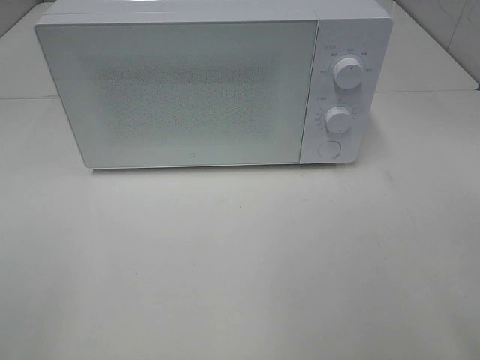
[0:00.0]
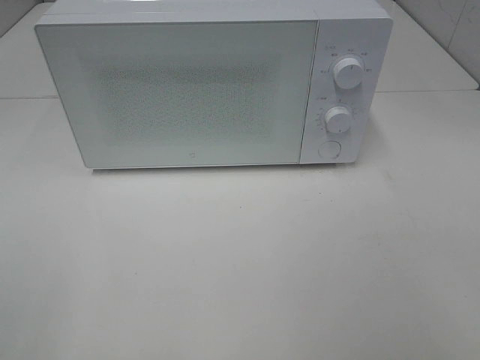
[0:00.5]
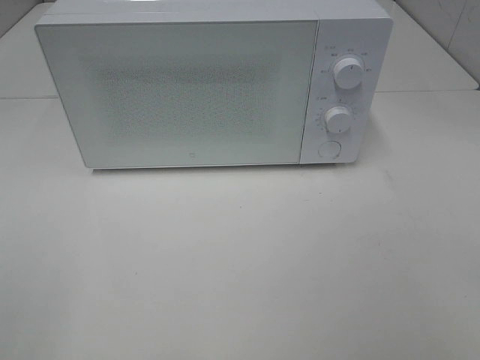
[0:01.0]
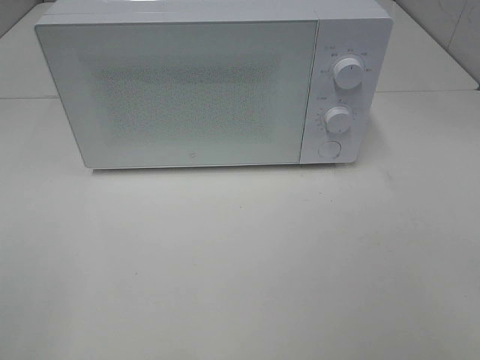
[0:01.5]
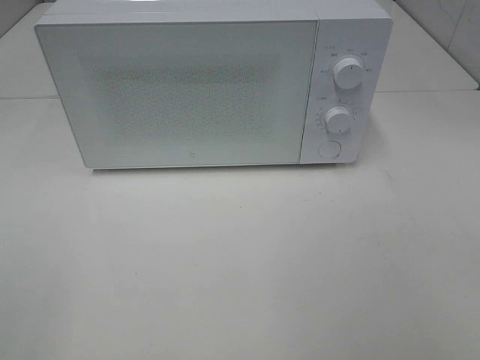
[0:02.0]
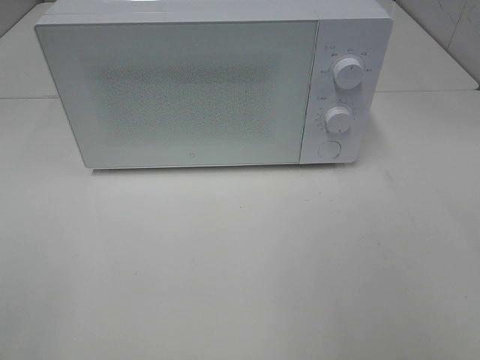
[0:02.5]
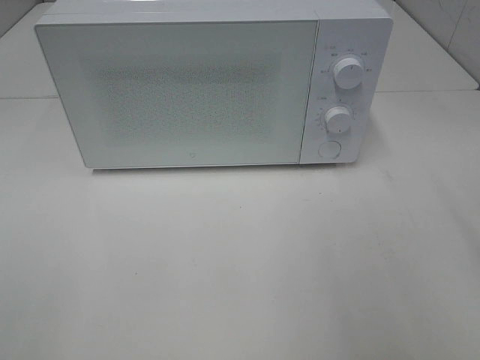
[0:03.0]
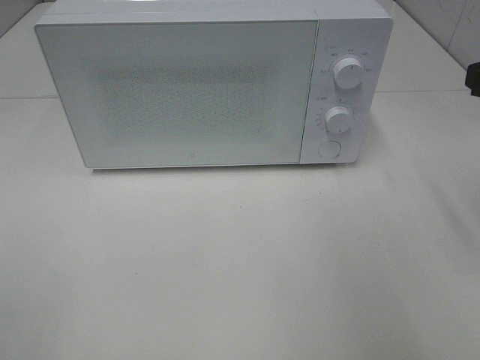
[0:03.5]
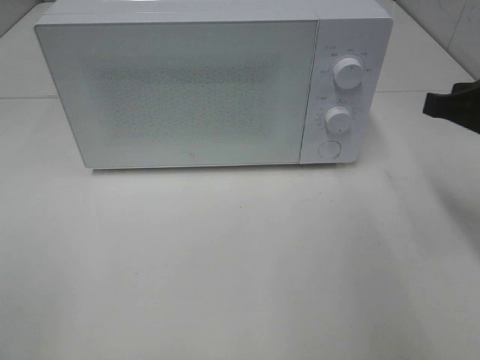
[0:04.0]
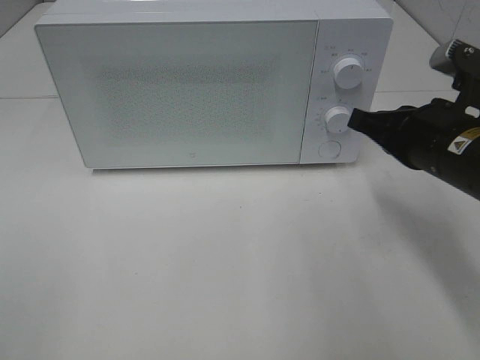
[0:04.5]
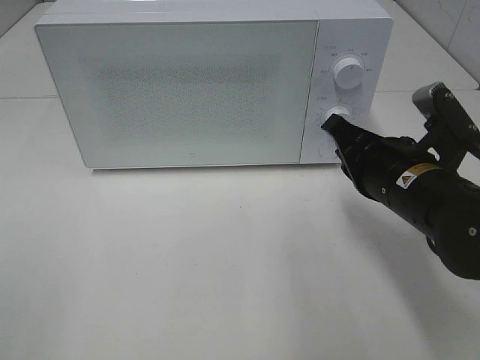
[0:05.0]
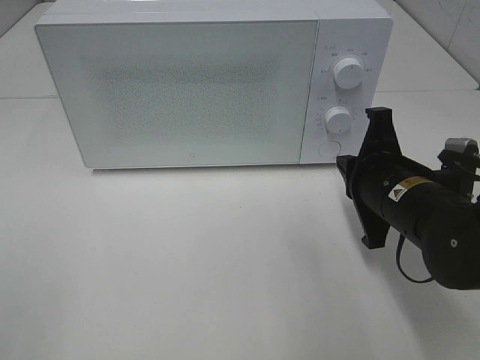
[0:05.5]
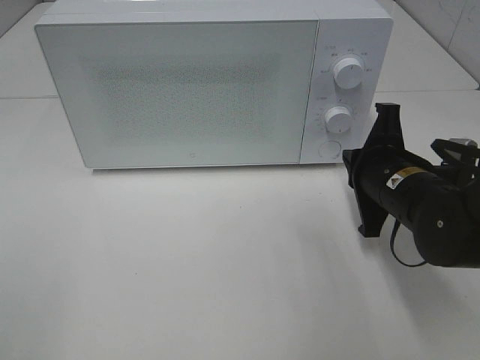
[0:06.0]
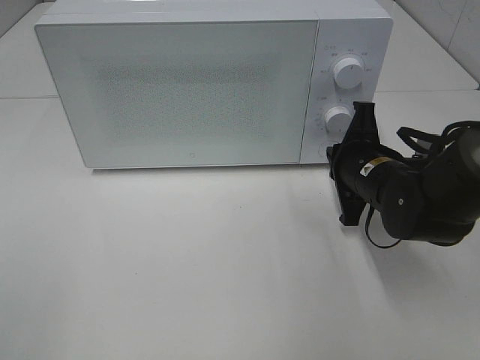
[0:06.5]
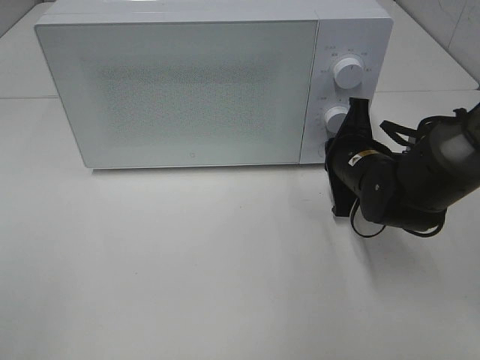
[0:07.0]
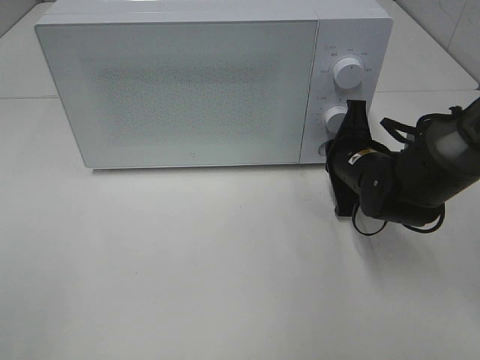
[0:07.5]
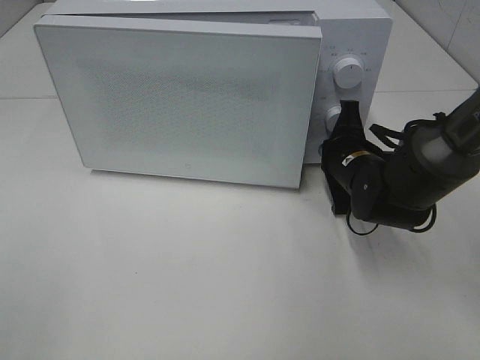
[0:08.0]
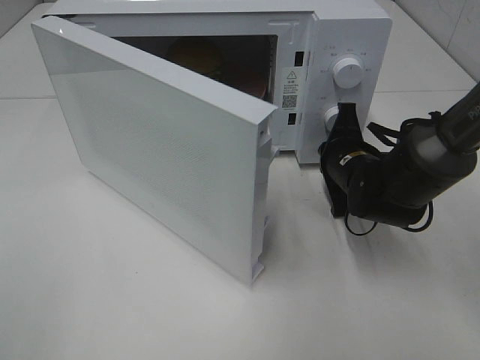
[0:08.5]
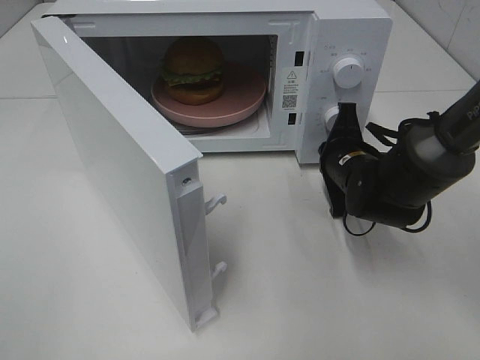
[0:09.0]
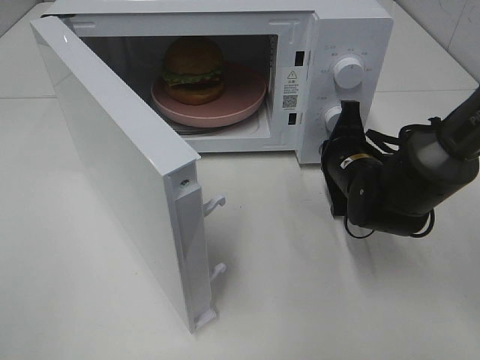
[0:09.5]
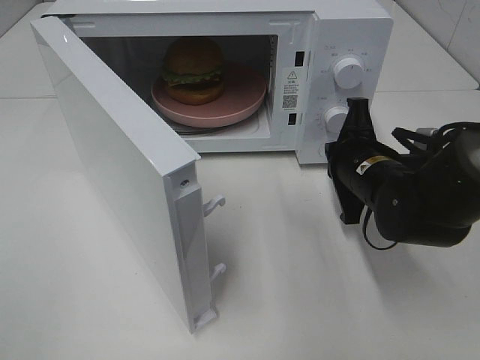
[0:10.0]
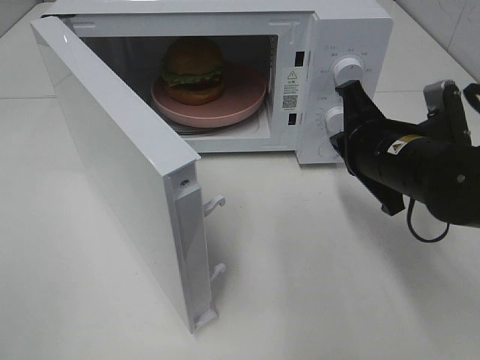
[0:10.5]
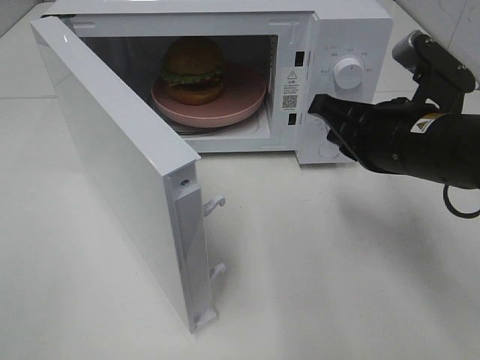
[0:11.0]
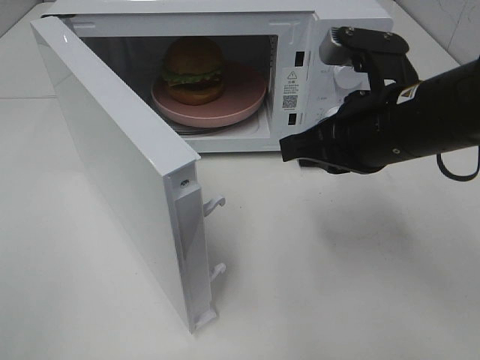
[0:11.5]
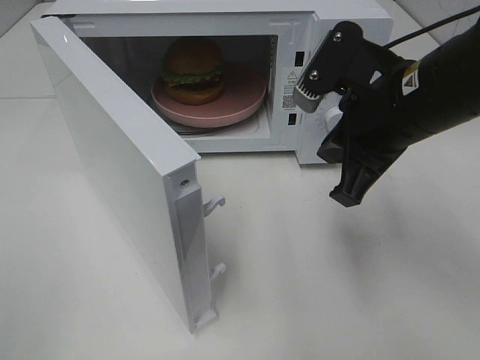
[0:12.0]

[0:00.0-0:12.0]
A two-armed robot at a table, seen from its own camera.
Task of the whole recording: Heat the burger.
Step, 0:00.0 to 0:09.5: Right hand: press the switch.
0:02.0 to 0:04.0: The right gripper heads forward, covering approximately 25 cm, and closes its fingers.
0:04.0 to 0:06.0: The right gripper shifts roughly 15 cm downward and to the left.
0:06.0 to 0:08.0: The right gripper is displaced forward by some 10 cm.
0:08.0 to 0:10.0: The right gripper moves backward, approximately 5 cm.
0:10.0 to 0:12.0: The right gripper shifts about 15 cm upward.

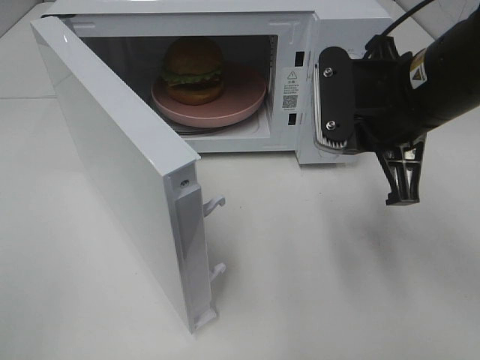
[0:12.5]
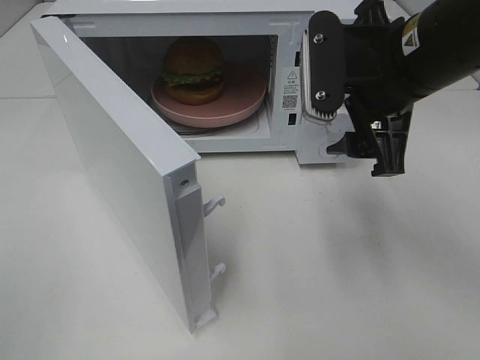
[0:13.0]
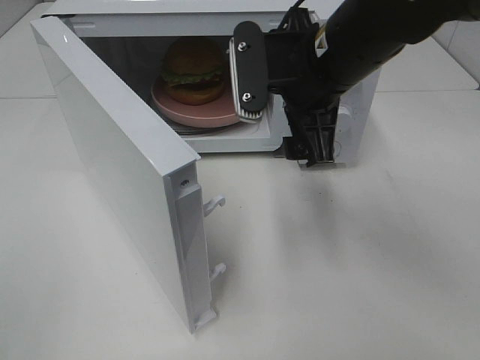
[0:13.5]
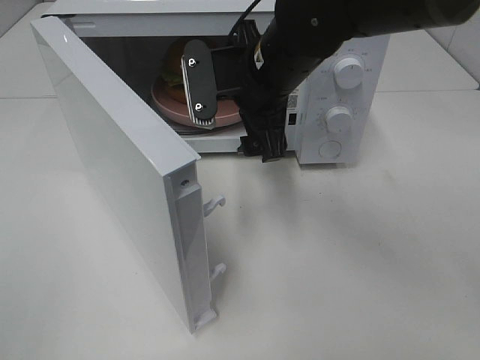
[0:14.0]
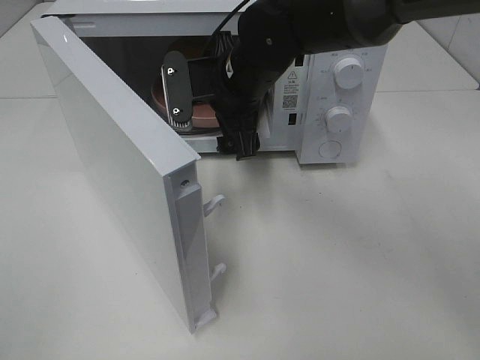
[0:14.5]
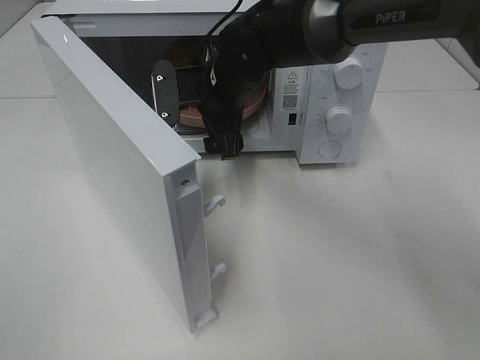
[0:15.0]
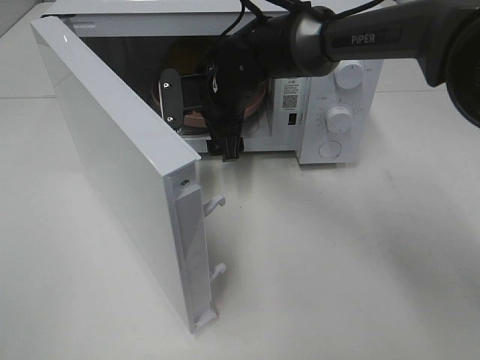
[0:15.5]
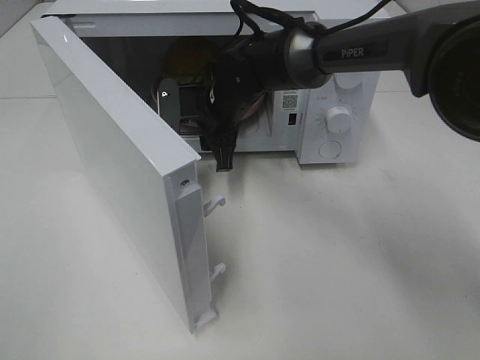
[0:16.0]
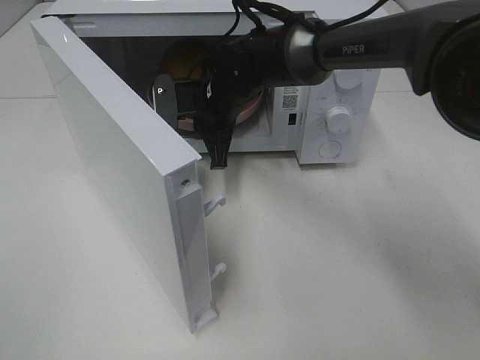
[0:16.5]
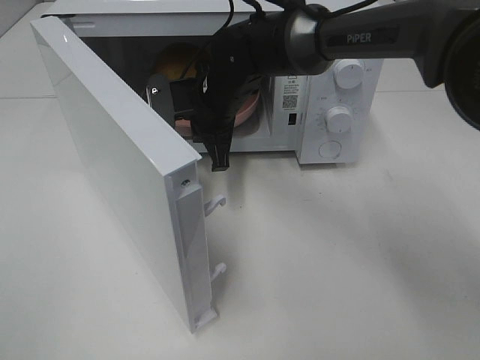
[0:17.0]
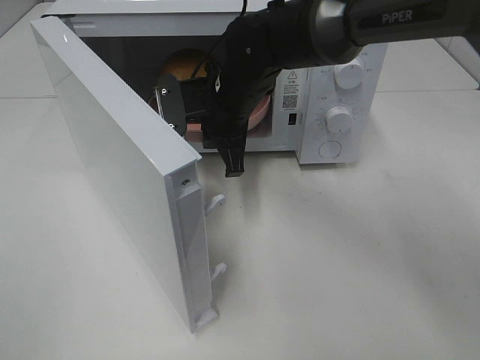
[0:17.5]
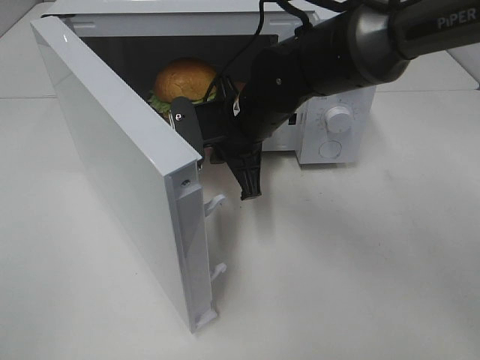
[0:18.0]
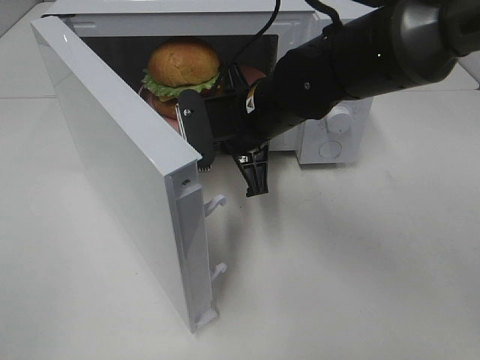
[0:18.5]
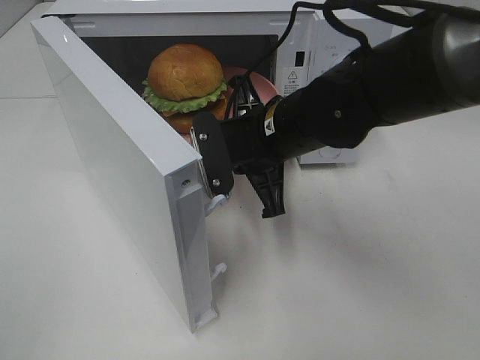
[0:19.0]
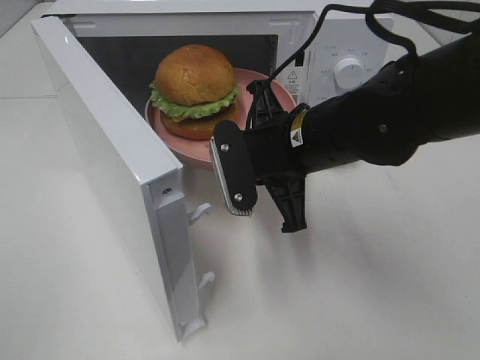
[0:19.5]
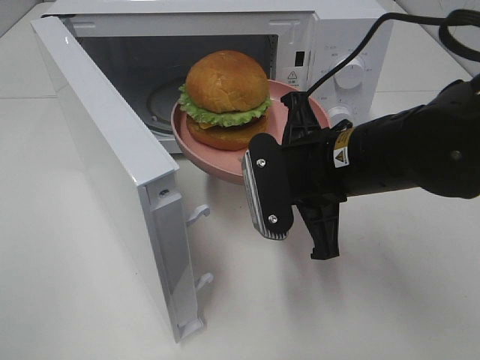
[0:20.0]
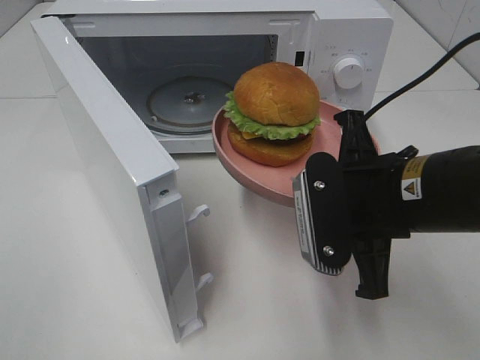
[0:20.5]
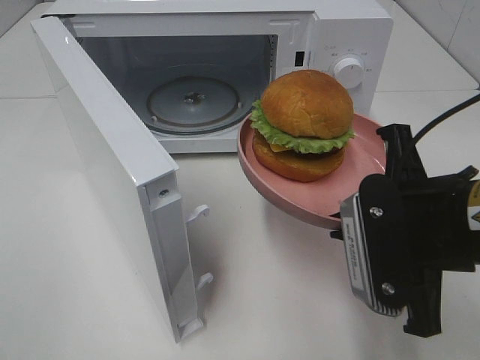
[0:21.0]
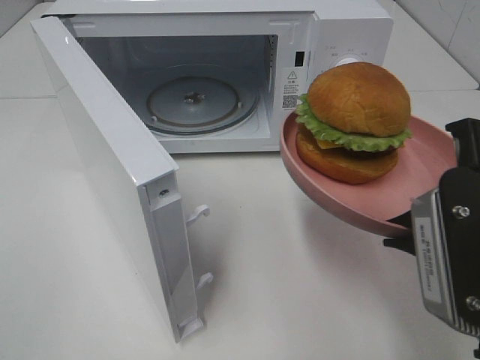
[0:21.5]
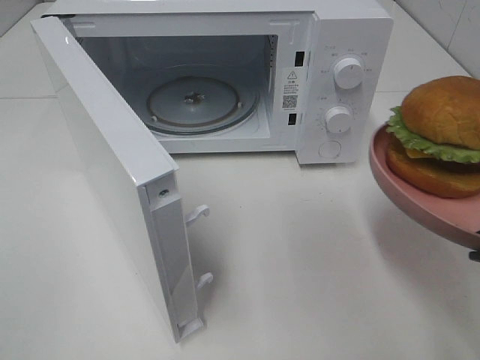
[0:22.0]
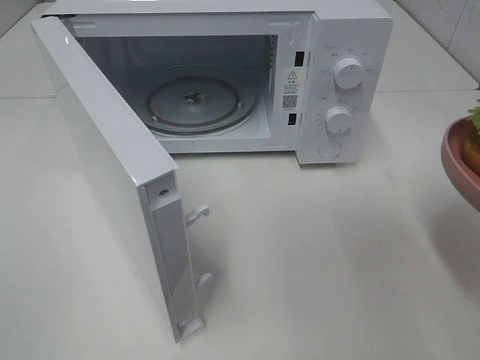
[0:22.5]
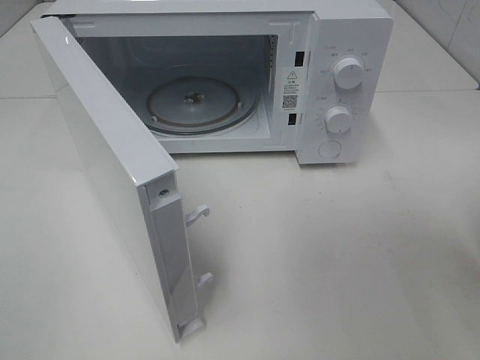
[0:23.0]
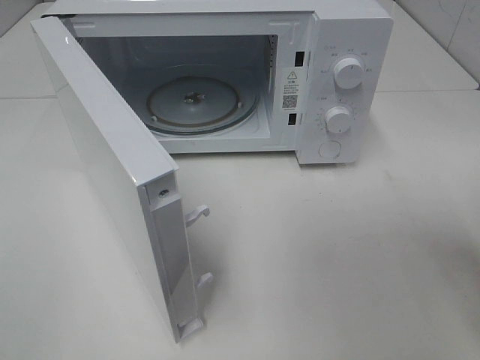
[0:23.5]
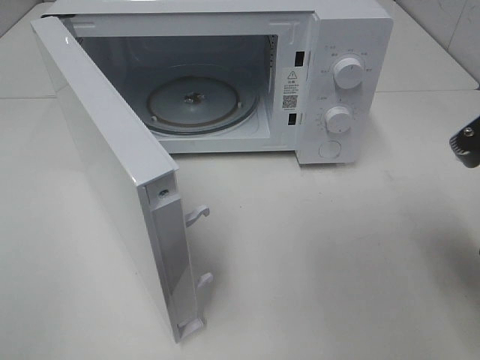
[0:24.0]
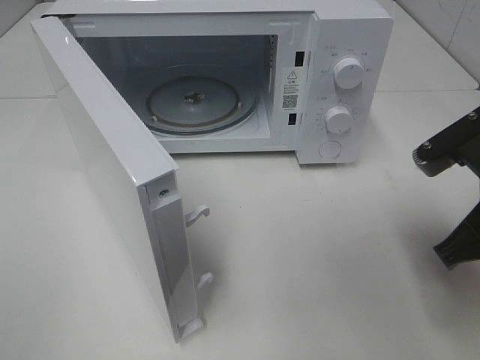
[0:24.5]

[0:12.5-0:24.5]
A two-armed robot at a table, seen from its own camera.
Task of the whole recording: Heat the burger.
Step, 0:12.5 to 0:16.0: Right hand: grab the plate with the hamburger.
0:12.5 to 0:14.5: The right gripper is displaced to the left and forward by approximately 20 cm, and opens its fingers.
0:14.5 to 0:16.5: The right gripper travels downward by approximately 5 cm, and closes its fingers.
0:16.5 to 0:18.5: The right gripper is displaced backward by some 10 cm.
0:18.5 to 0:20.5: The right gripper goes some 15 cm backward and to the right.
0:20.5 to 0:22.5: The right gripper moves to the right and backward, approximately 15 cm.
0:22.5 to 0:24.5: The right gripper moves forward, approximately 10 cm.

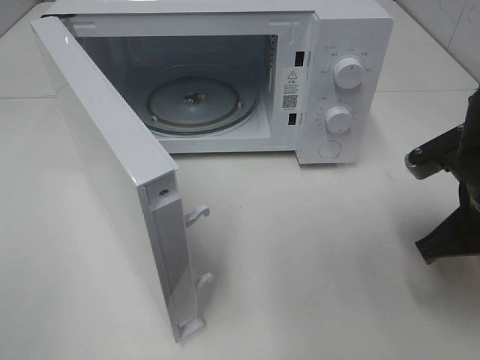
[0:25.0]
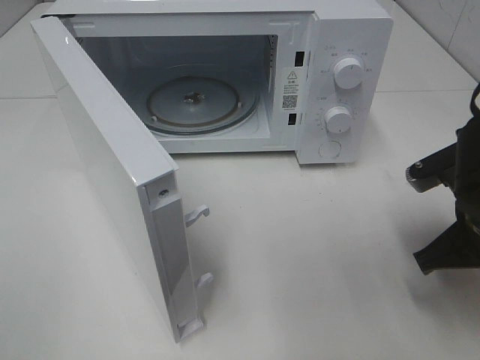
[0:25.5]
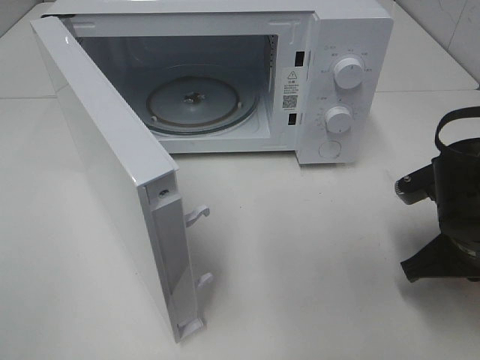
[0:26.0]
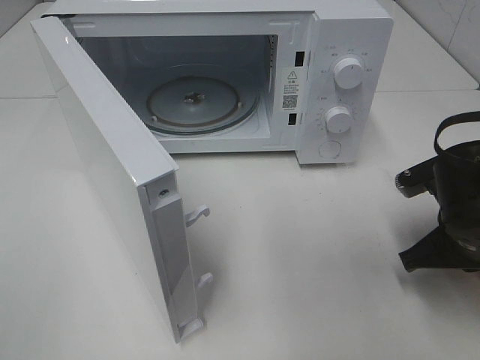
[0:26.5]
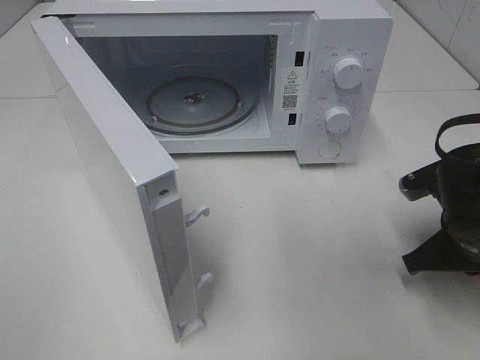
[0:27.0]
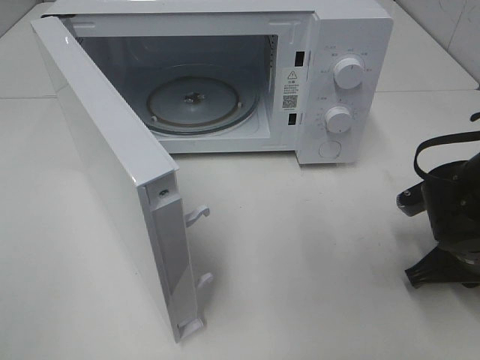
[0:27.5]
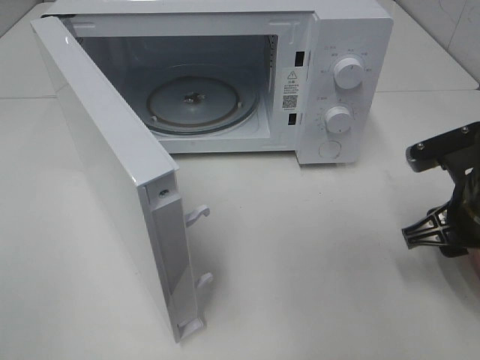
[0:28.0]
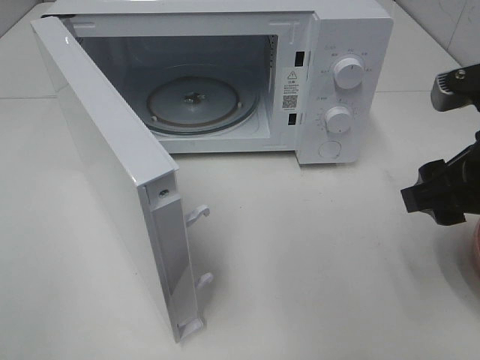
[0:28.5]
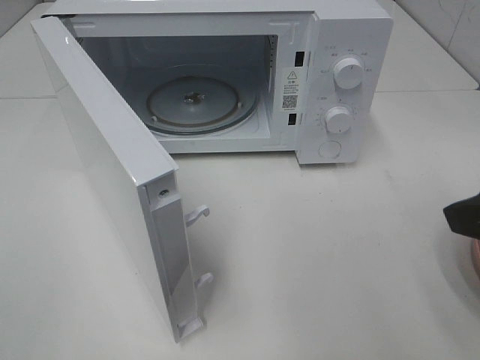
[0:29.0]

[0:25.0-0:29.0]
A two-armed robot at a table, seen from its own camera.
Task of the whole recording: Heat the burger.
Step, 0:25.0 to 0:27.0: Right hand: place the plate on the table.
0:25.0 to 0:27.0: The right gripper is displaced downward by roughly 5 cm.
0:27.0 to 0:29.0: The right gripper is displaced upward and backward by about 20 cm, and opens.
